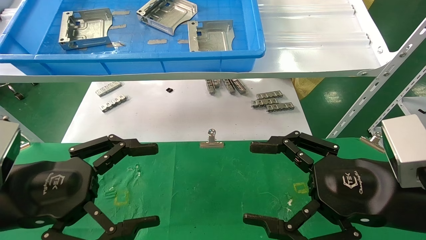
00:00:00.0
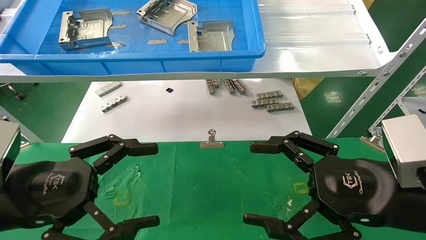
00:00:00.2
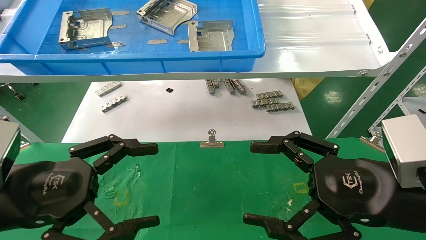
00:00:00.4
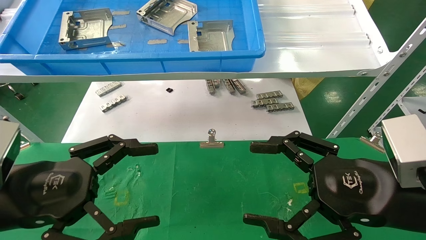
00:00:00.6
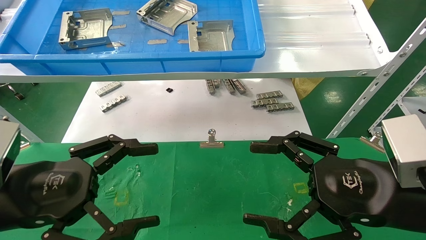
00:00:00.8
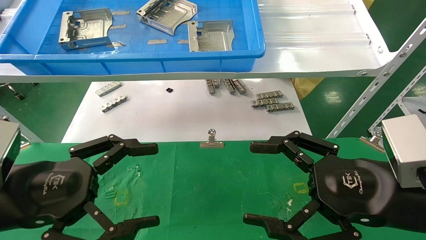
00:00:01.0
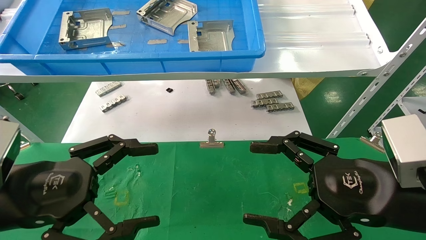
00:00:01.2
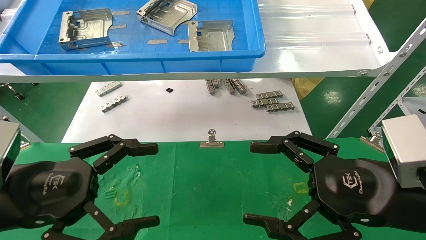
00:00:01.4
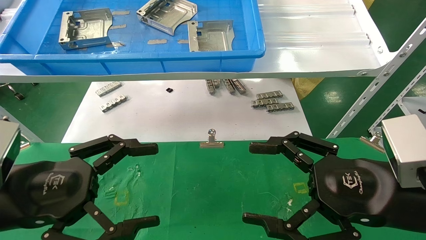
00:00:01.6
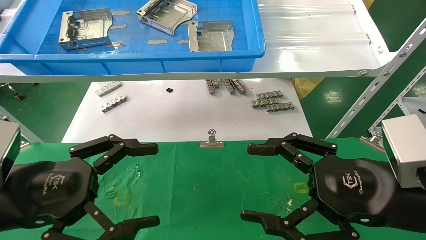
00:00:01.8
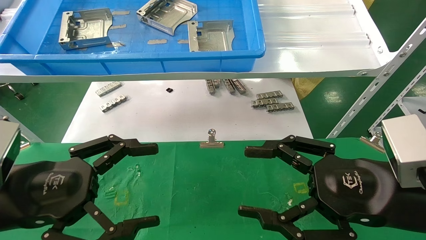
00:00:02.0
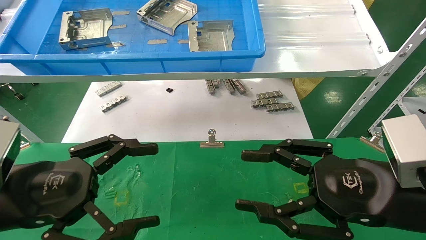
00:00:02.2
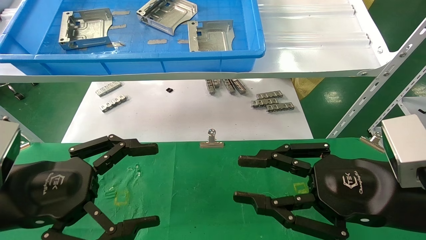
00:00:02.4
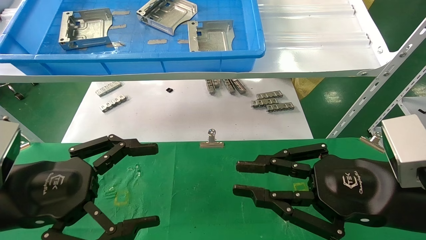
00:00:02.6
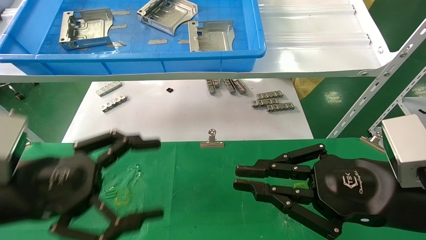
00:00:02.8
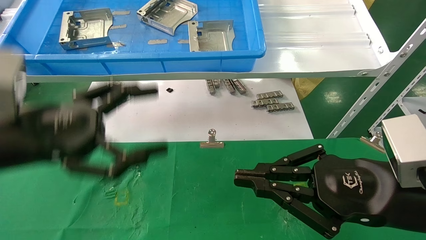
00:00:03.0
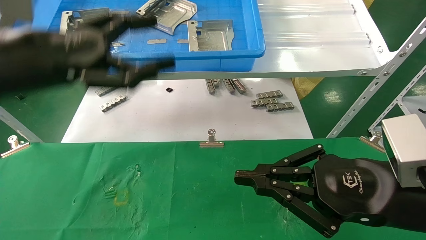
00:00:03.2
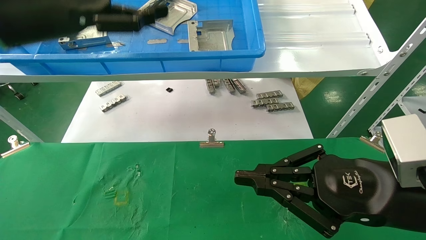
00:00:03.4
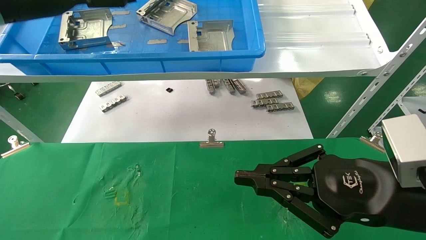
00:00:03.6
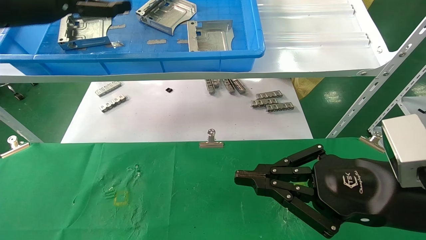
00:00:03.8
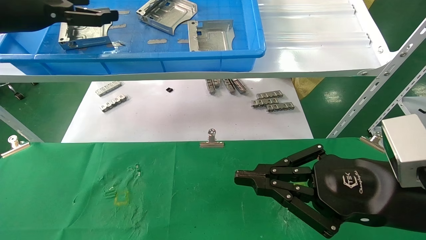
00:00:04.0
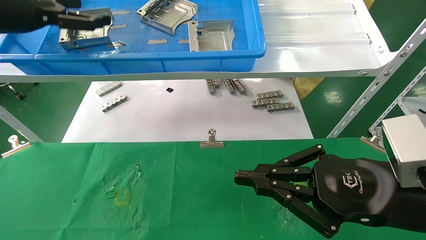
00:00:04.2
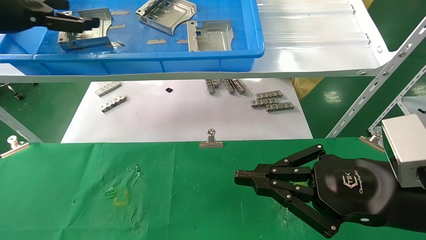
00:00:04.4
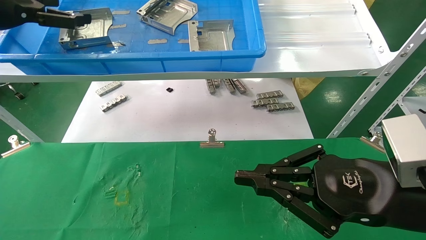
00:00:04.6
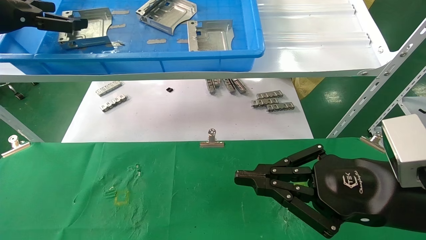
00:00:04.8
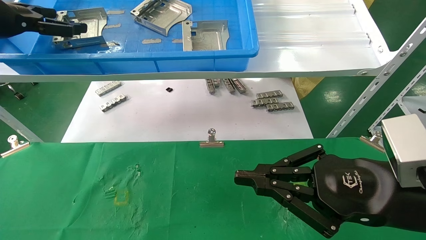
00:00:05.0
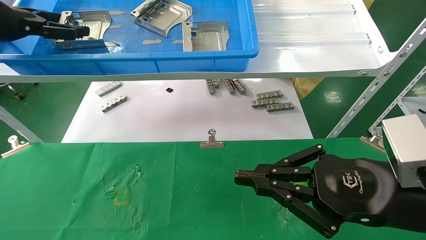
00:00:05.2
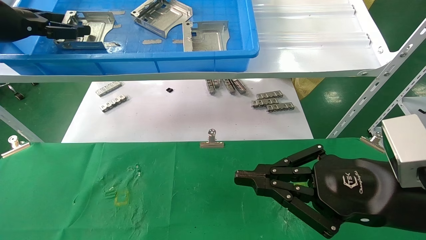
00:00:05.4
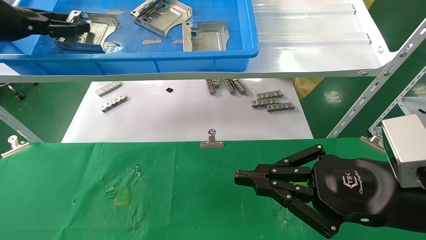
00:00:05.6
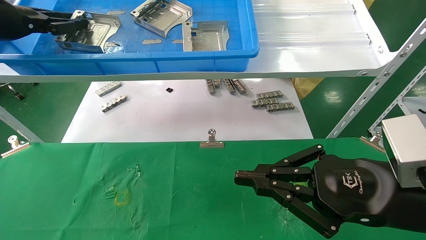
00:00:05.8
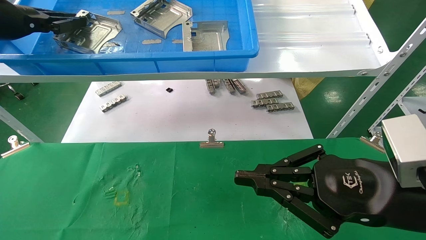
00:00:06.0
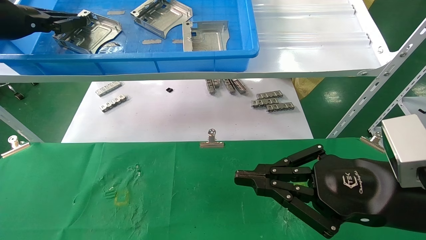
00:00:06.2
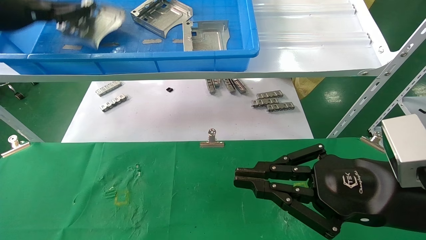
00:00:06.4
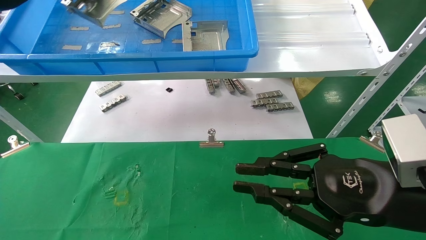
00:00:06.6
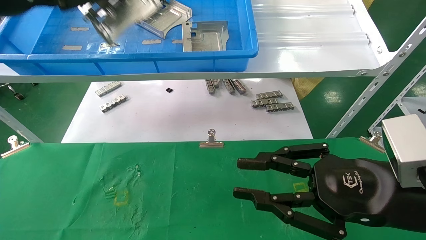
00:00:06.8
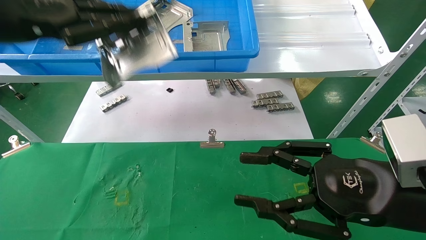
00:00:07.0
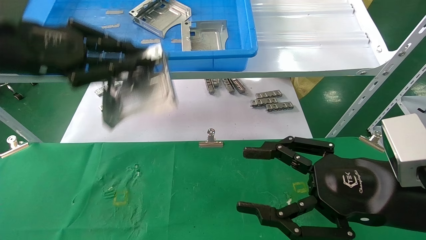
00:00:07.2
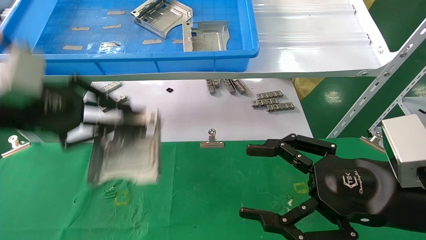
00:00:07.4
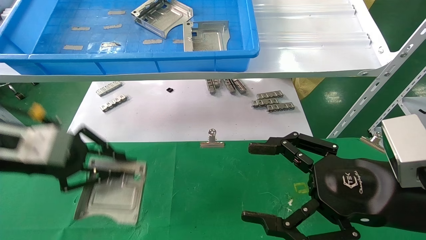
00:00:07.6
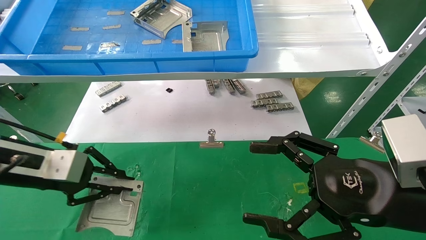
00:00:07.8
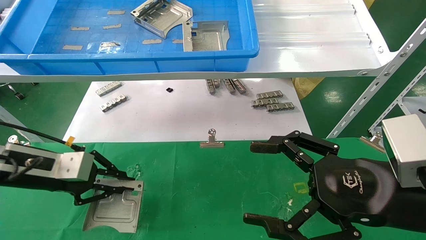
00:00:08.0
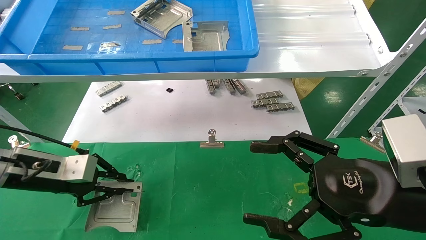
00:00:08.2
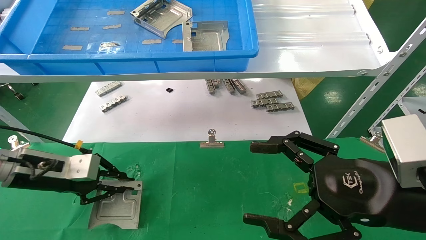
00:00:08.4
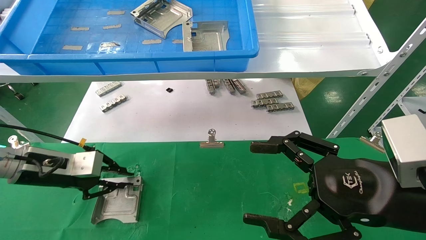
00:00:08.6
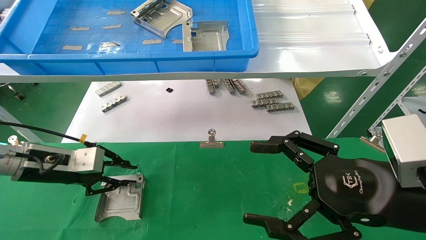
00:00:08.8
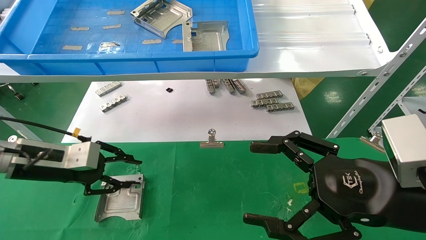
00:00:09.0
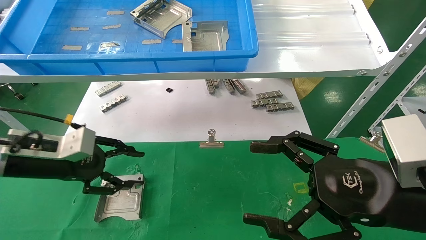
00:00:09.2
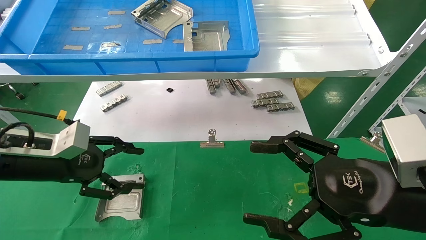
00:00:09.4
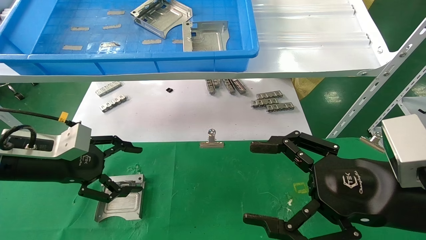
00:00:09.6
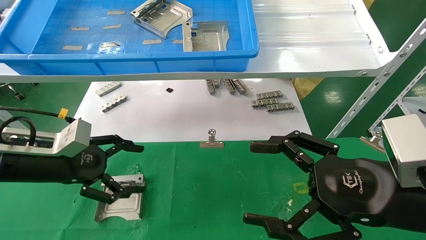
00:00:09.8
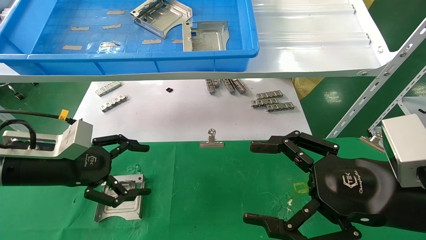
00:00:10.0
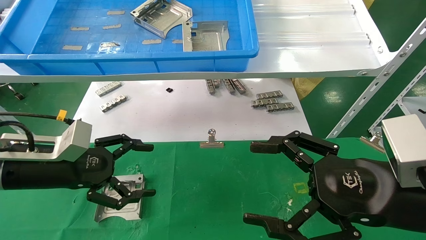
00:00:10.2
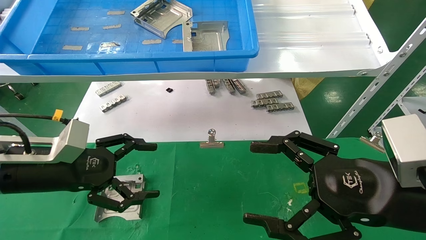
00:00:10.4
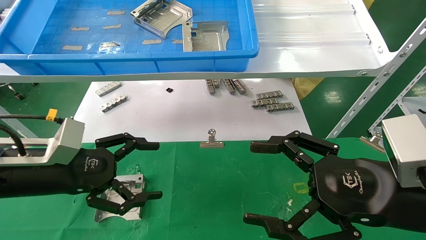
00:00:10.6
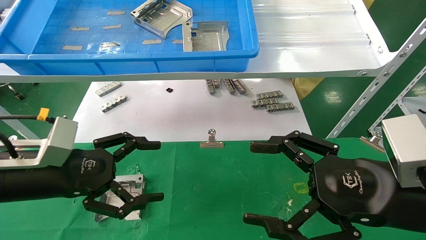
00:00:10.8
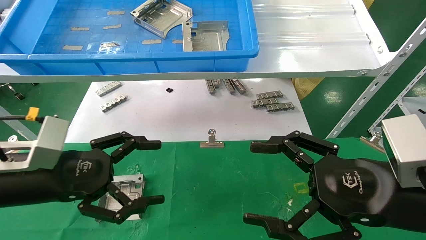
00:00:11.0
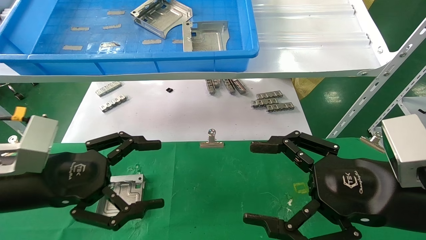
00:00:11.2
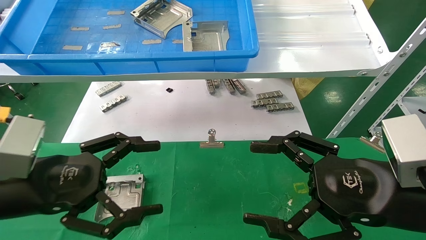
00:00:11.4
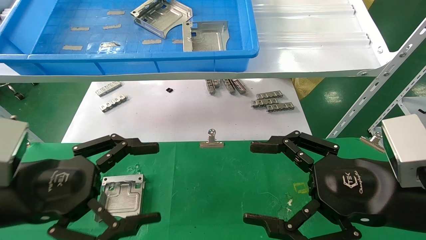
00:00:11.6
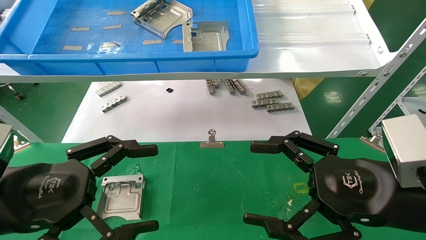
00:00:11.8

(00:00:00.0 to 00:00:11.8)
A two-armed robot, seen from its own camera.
Task of the whole recording: use the mechanical arm to pick up the parts and place them on the table.
Step, 00:00:03.0 - 00:00:06.6: Pick up the hard drive bracket from the feeding area.
Step, 00:00:06.8 - 00:00:09.6: Place the hard drive bracket into the box.
00:00:00.0 - 00:00:01.4: Both grippers stay put.
00:00:01.4 - 00:00:03.0: The right gripper closes. The left gripper heads upward, covering some 10 cm.
00:00:03.0 - 00:00:04.4: The left gripper goes about 20 cm upward, forward and to the left.
00:00:04.4 - 00:00:06.0: The left gripper closes up.
00:00:06.0 - 00:00:07.4: The right gripper opens; the left gripper heads backward, downward and to the right, covering roughly 15 cm.
00:00:07.4 - 00:00:08.8: The left gripper shifts roughly 15 cm downward and forward.
00:00:08.8 - 00:00:10.4: The left gripper moves backward, approximately 5 cm, and opens its fingers.
00:00:10.4 - 00:00:11.8: The left gripper is displaced backward by roughly 10 cm.
